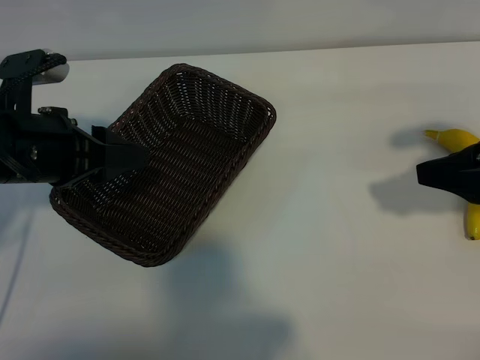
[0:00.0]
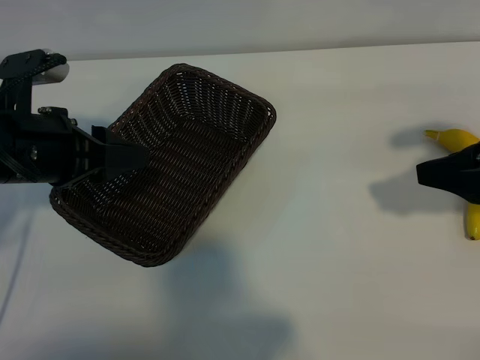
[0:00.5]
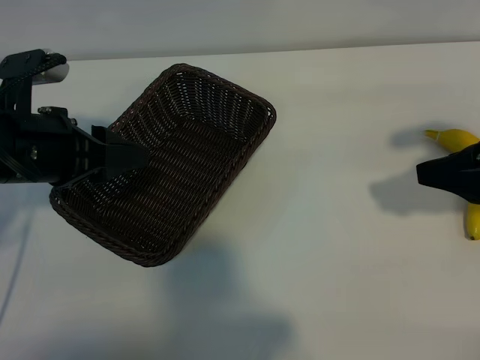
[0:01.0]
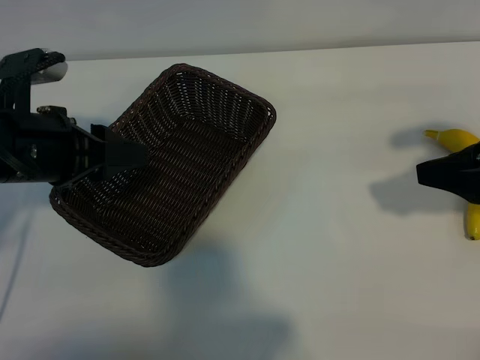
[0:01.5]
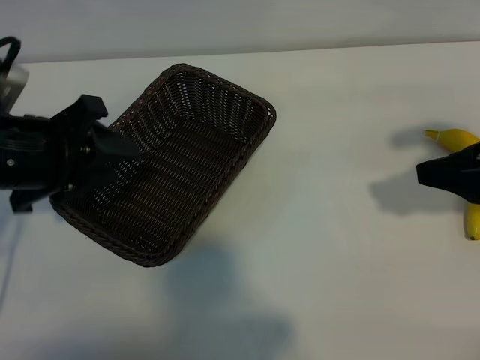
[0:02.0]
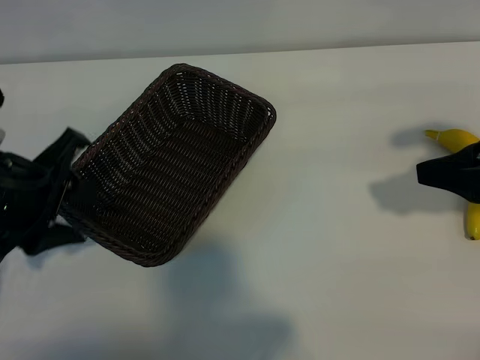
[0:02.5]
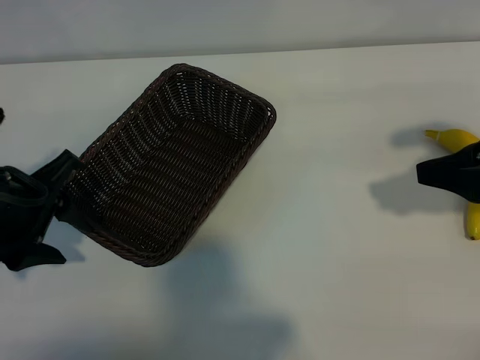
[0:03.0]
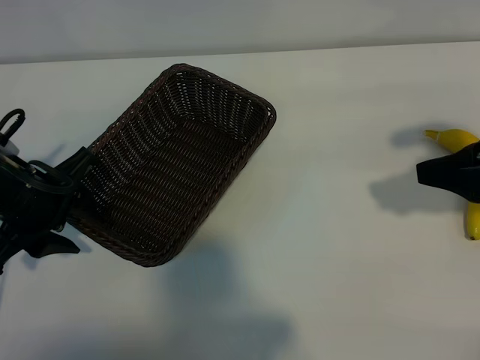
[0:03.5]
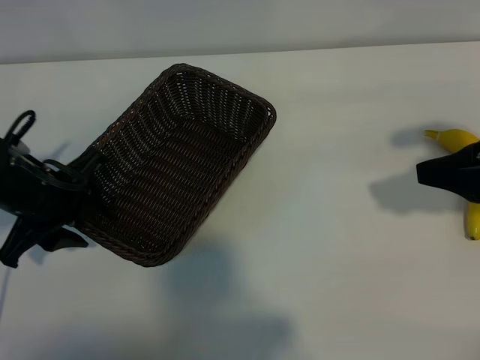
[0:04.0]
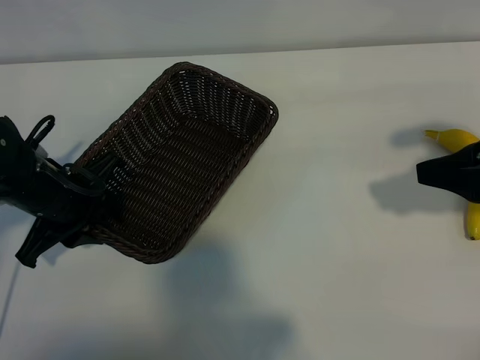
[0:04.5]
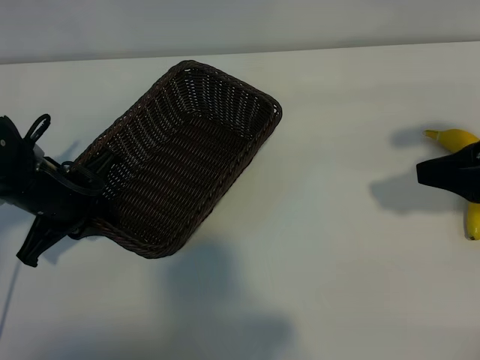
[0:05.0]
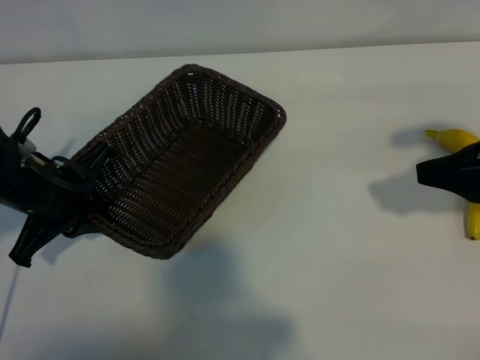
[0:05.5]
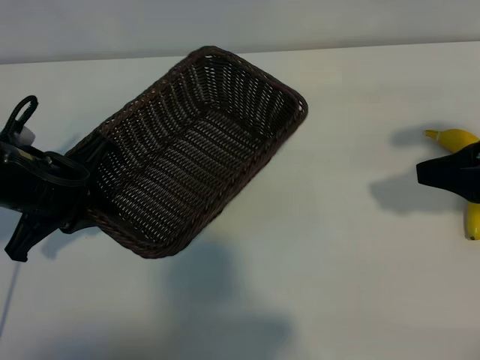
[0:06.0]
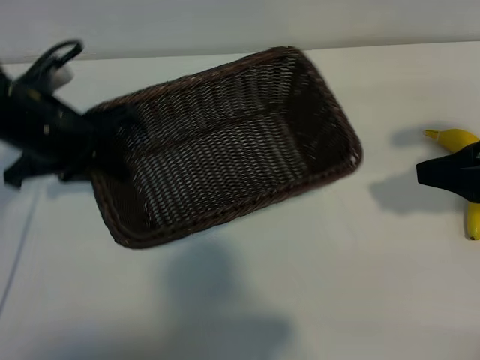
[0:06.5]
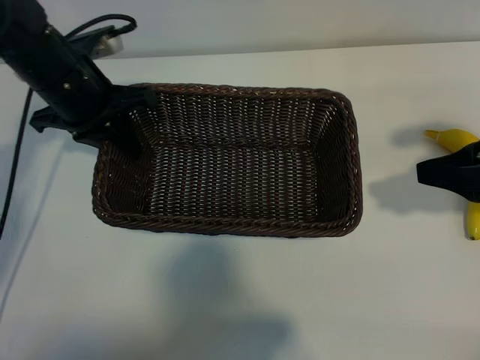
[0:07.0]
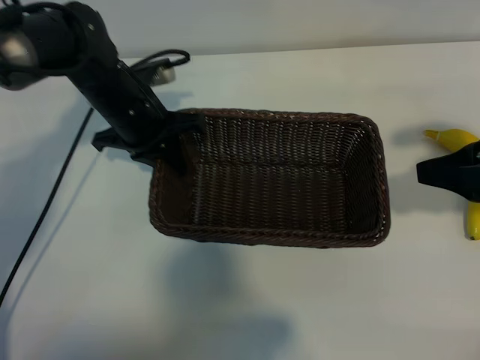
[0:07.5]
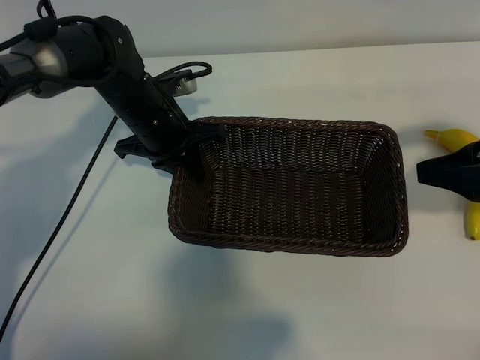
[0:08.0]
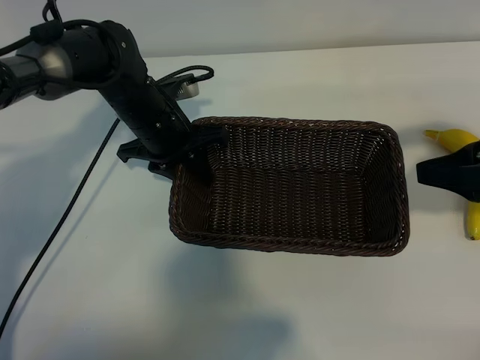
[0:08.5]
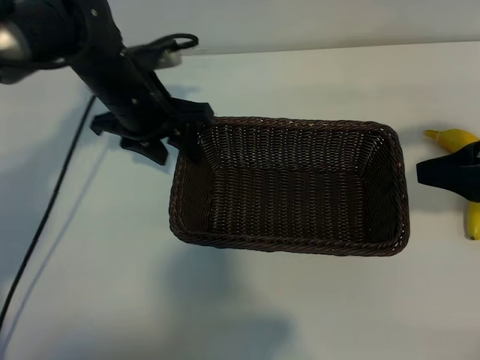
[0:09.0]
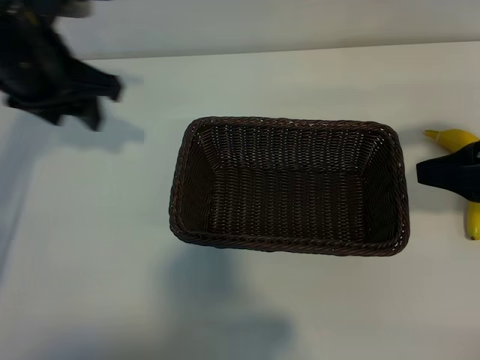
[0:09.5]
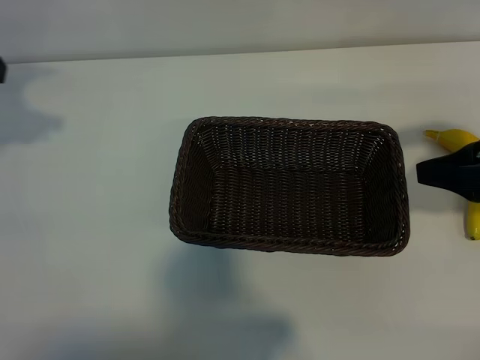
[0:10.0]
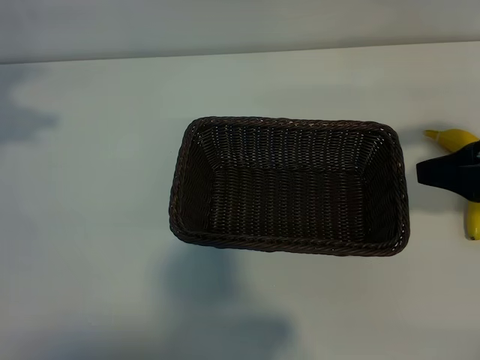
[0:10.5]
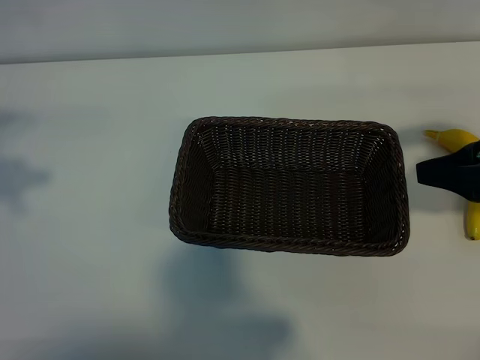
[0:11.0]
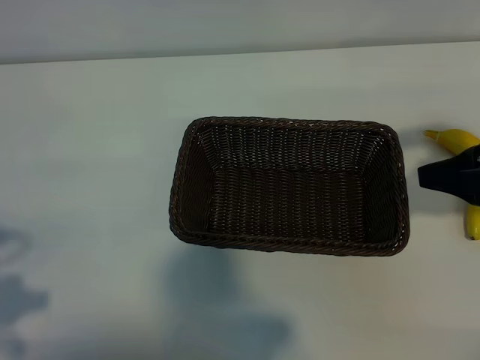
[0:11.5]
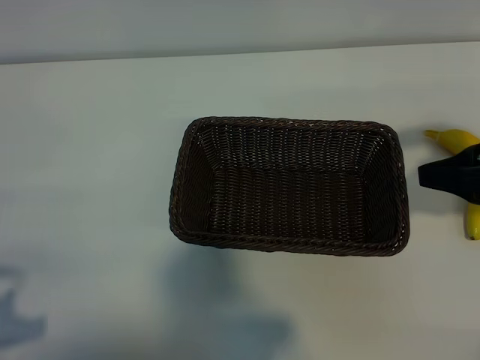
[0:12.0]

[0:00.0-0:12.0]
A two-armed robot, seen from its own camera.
Task of the whole recording: pick up the banana and put it into the basket.
Step, 0:01.0 to 0:05.0: Grasp the basket with the left gripper.
Step, 0:05.5 to 0:09.0: Place the basket in the center of the table with the left gripper.

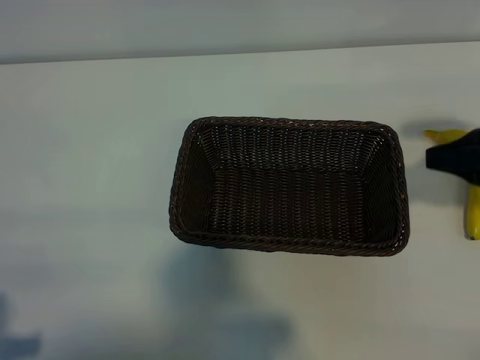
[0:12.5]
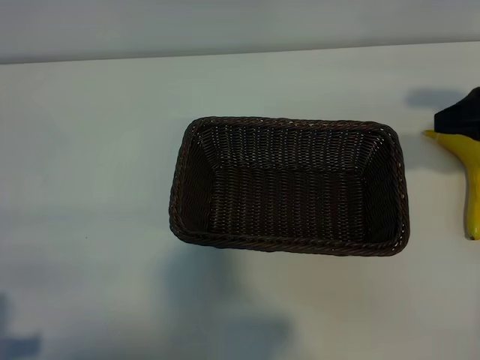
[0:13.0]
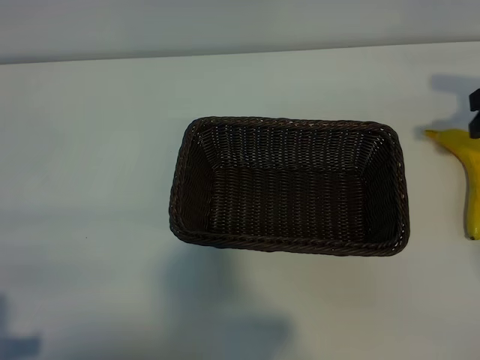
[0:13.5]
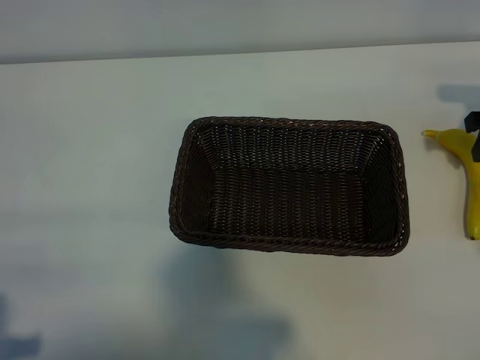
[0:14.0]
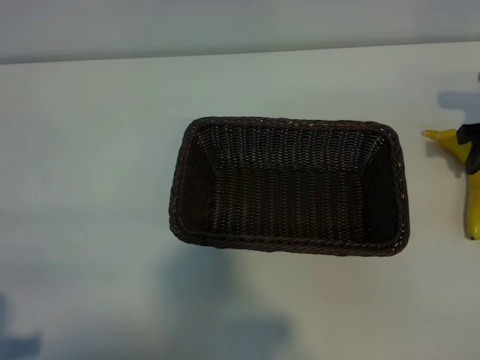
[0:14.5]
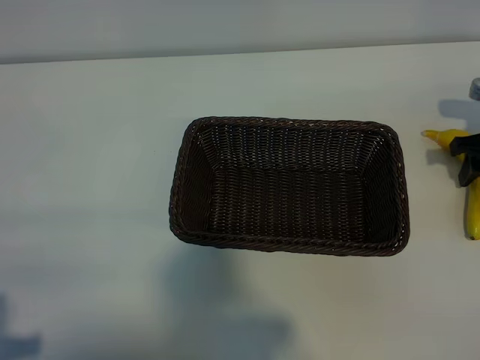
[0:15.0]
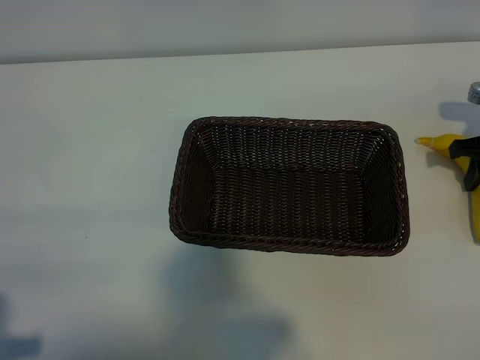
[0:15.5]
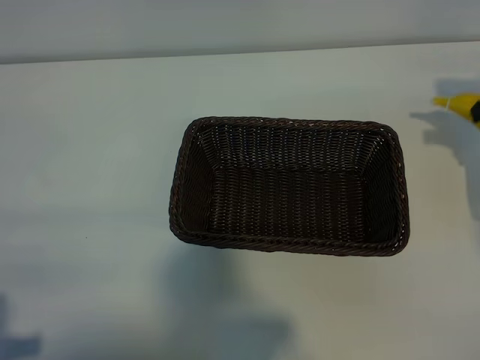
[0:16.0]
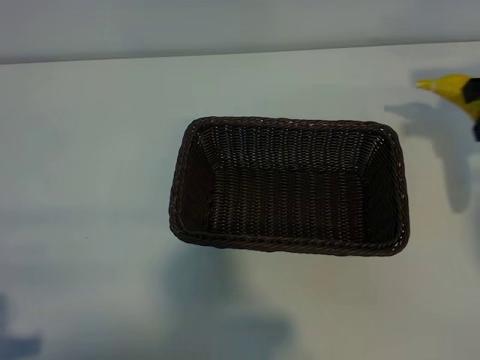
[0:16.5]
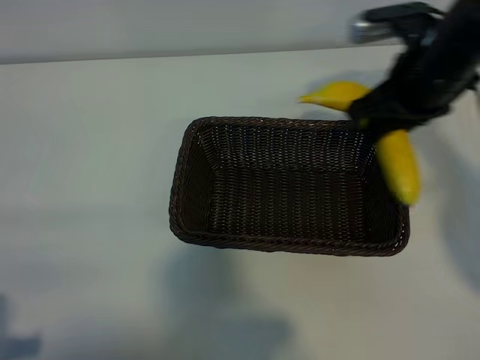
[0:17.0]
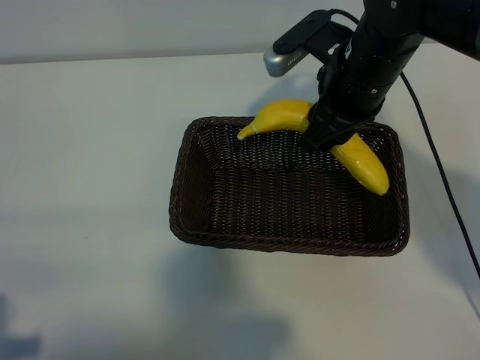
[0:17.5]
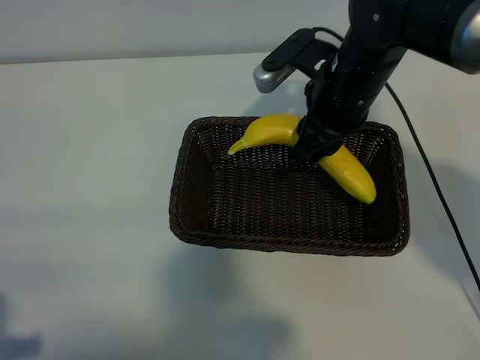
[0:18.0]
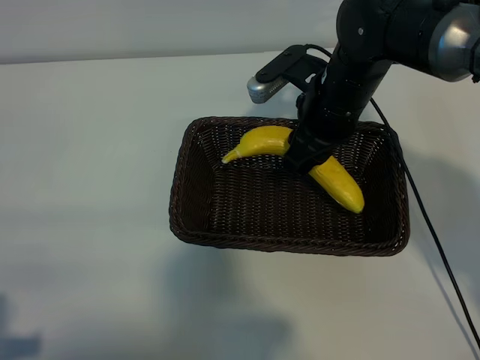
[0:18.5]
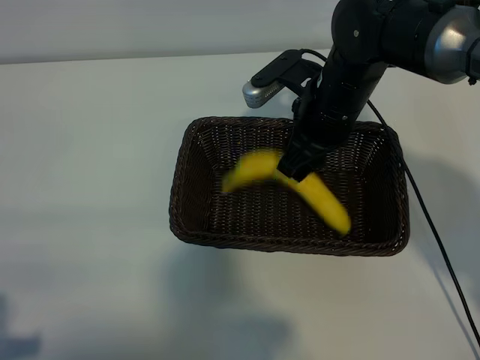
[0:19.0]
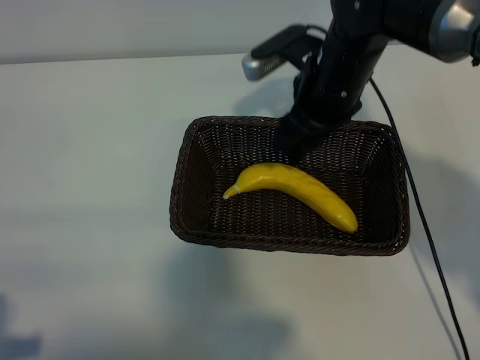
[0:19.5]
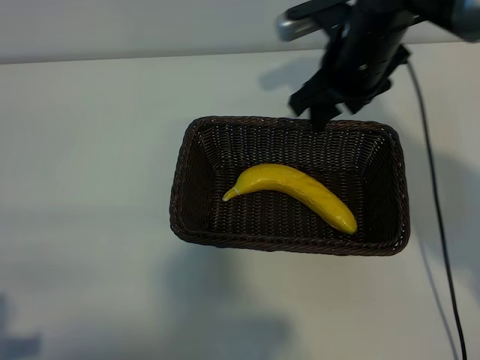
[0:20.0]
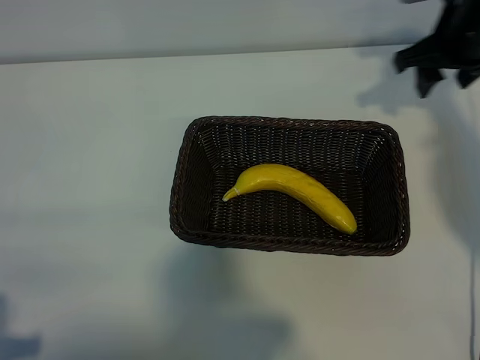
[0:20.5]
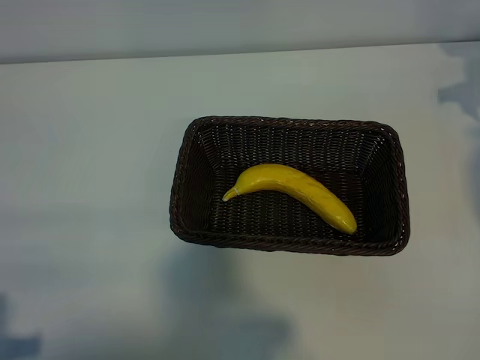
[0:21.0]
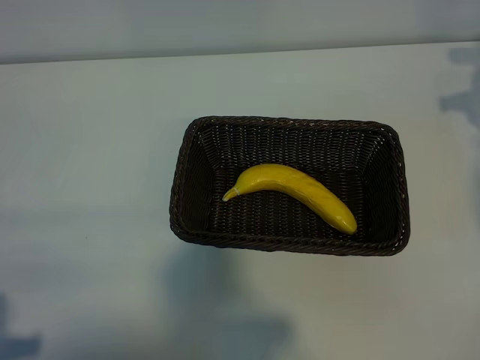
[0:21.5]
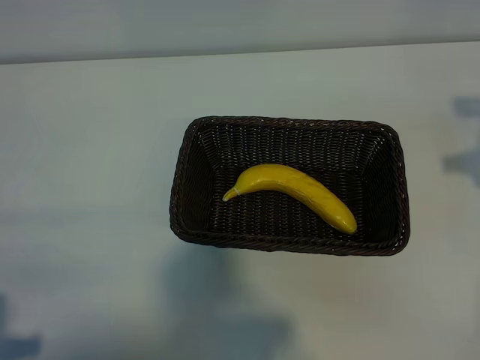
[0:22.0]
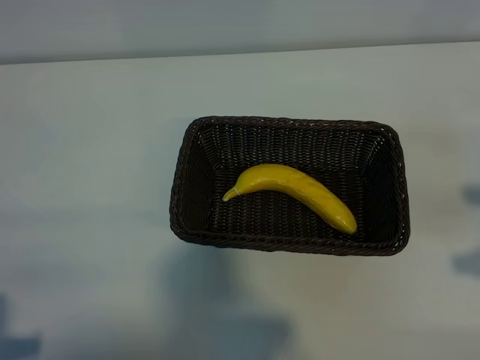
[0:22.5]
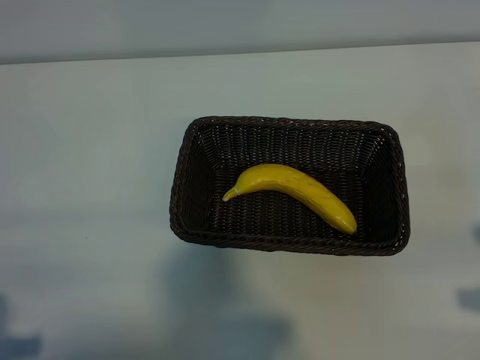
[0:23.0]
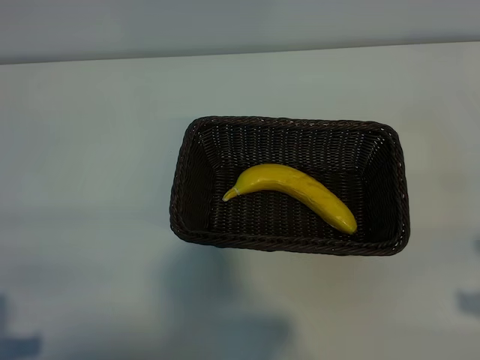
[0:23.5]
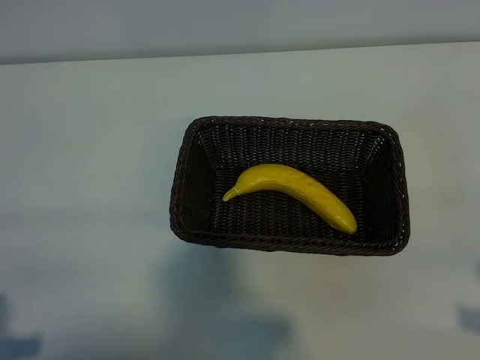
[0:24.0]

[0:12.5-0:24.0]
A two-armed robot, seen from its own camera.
Task of the whole recording: pick up the banana and put it into the basket.
Step, 0:12.5 to 0:15.5: Grasp the banana with right gripper.
Step, 0:16.0 to 0:19.5: Place the banana in the basket with right gripper.
